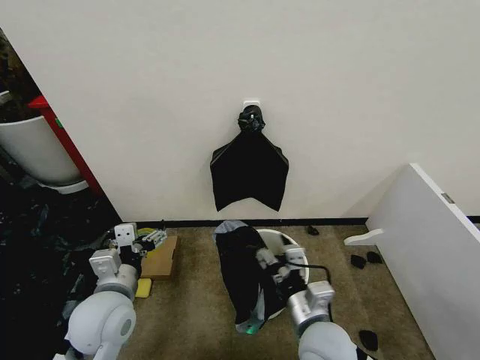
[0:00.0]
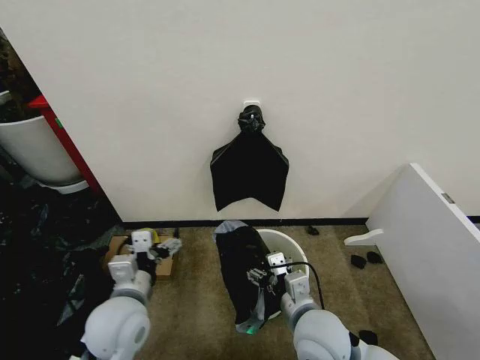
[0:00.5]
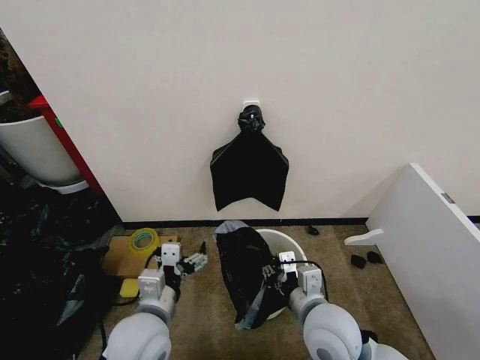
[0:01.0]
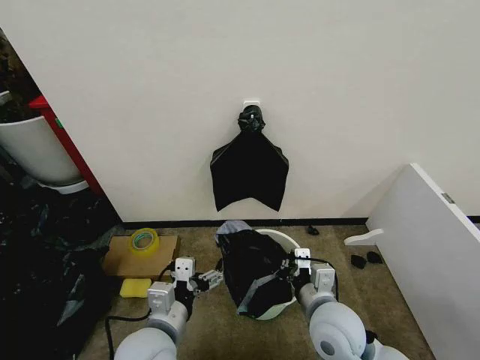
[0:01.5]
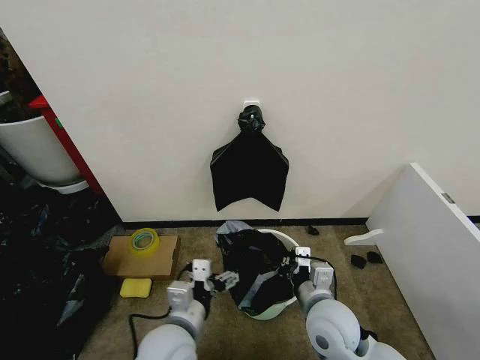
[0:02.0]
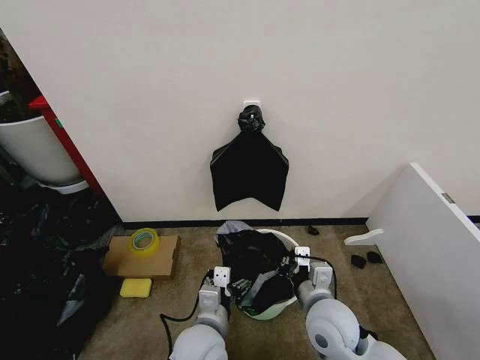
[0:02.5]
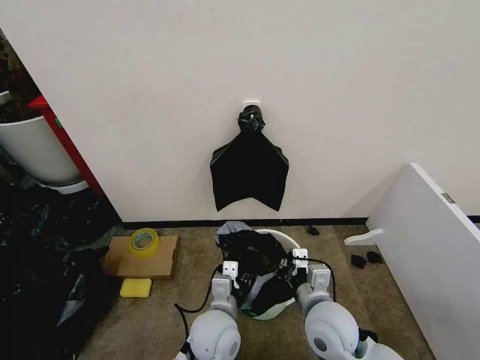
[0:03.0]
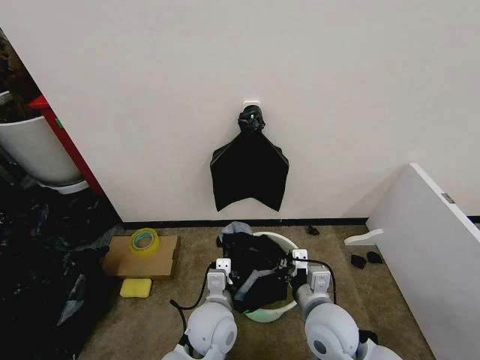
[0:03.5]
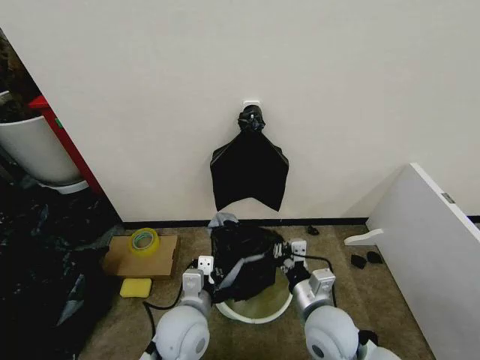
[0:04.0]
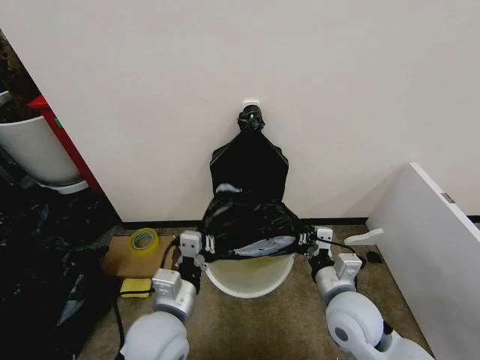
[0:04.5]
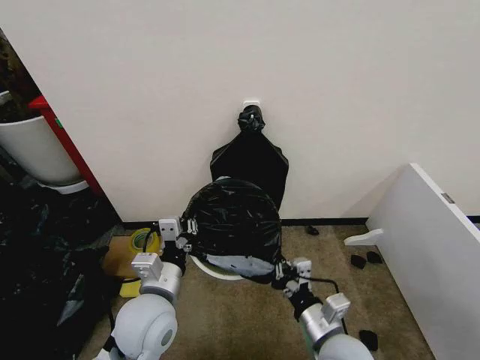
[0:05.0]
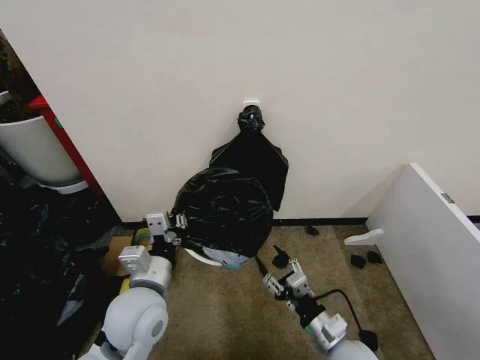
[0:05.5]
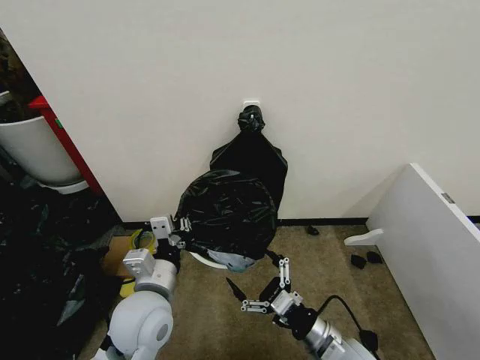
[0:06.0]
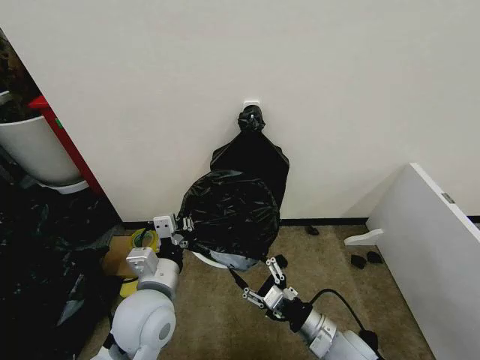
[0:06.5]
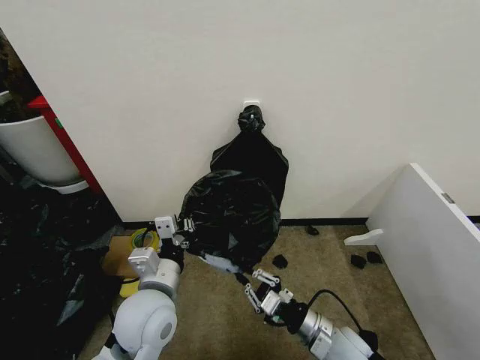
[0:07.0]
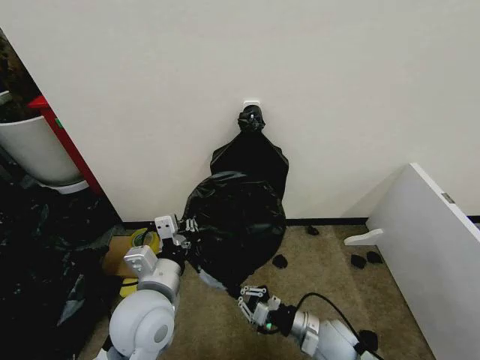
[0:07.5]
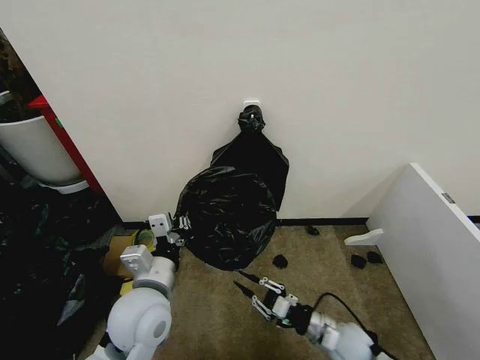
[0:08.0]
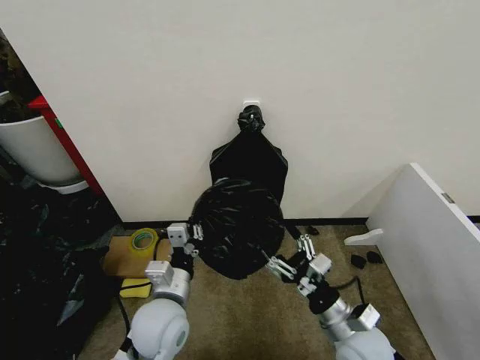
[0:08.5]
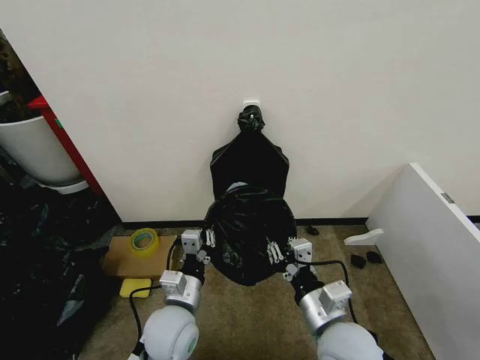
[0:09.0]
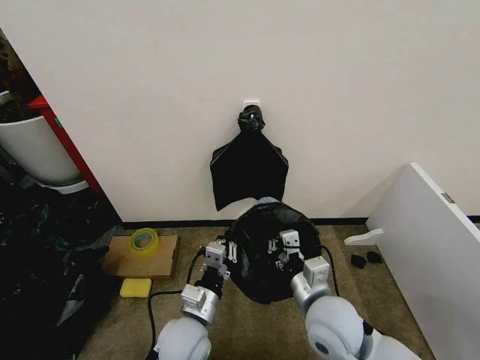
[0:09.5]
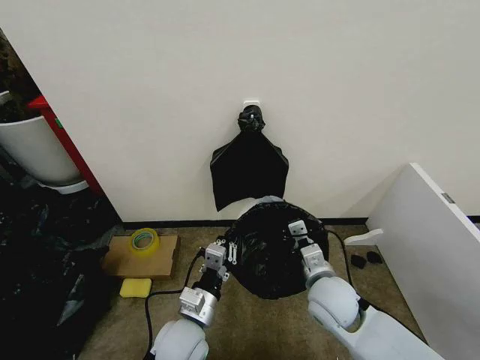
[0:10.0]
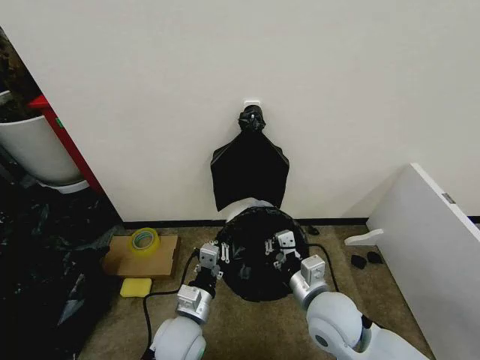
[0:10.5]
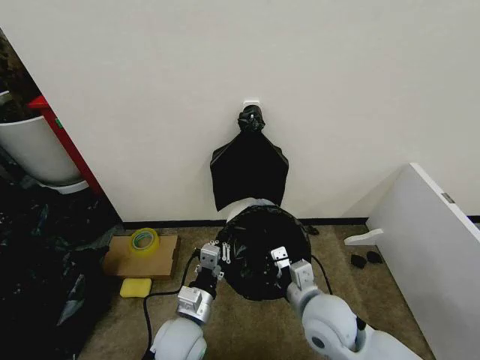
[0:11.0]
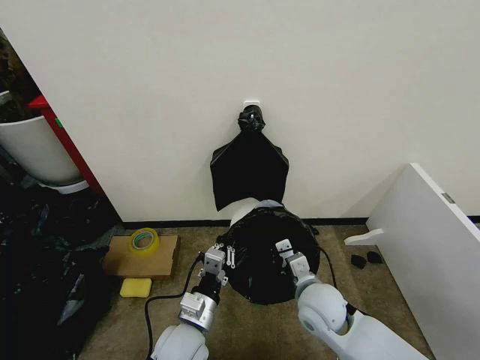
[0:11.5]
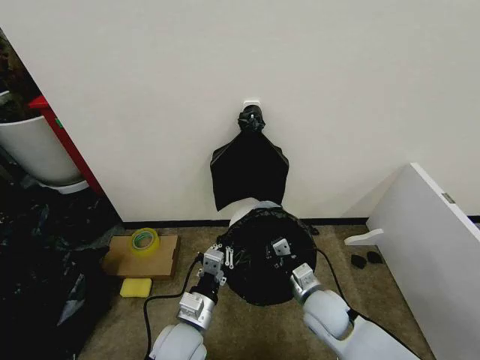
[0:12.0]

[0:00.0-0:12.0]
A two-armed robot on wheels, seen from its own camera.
Task of the whole recording: Place the garbage bag over the trash bin.
0:00.0 to 0:02.0: The right gripper moves some 5 cm, and closes; the left gripper is displaced to the right by about 10 cm.
0:02.0 to 0:04.0: The left gripper closes its fingers.
0:04.0 to 0:06.0: The left gripper heads upward and to the left, covering roughly 10 cm. Meanwhile the right gripper ends up some 10 cm from where it was, and opens up.
0:06.0 to 0:08.0: The right gripper goes about 10 cm downward and forward, and closes up.
0:08.0 to 0:10.0: The left gripper travels downward and to the right by roughly 10 cm. The right gripper is displaced upward, forward and to the left by some 15 cm, and opens and closes again.
0:10.0 to 0:12.0: The right gripper is displaced downward by roughly 5 cm.

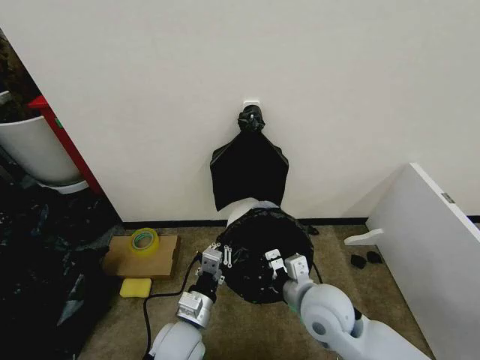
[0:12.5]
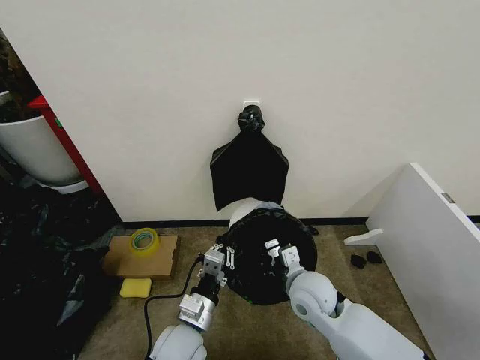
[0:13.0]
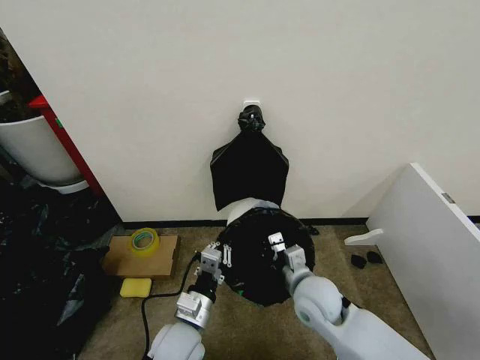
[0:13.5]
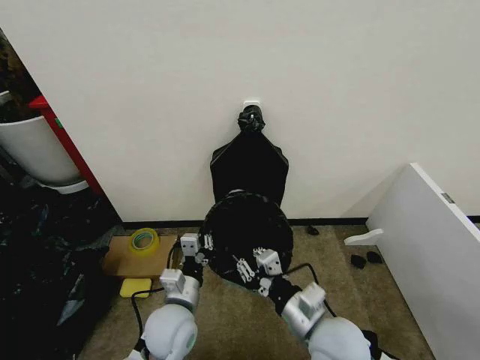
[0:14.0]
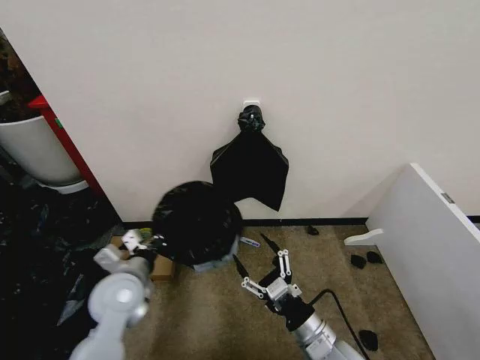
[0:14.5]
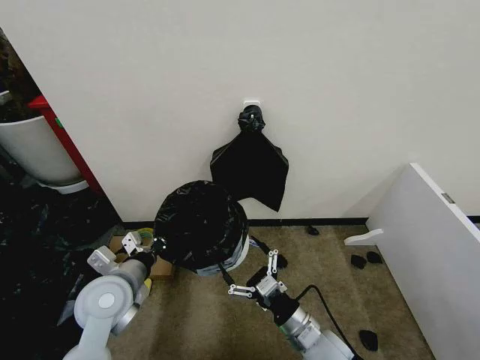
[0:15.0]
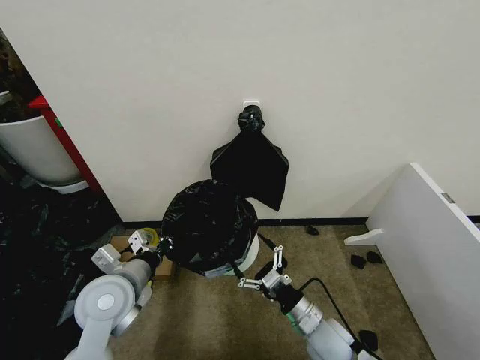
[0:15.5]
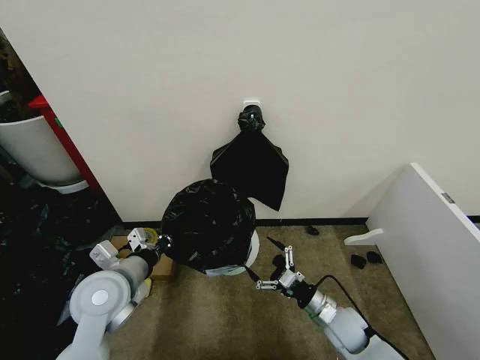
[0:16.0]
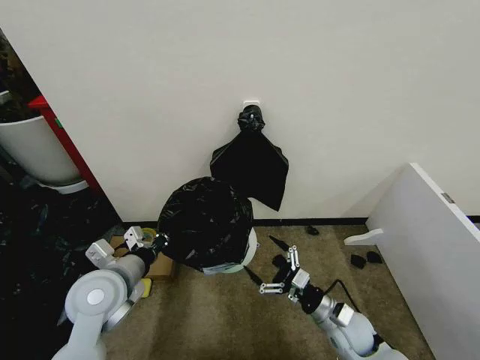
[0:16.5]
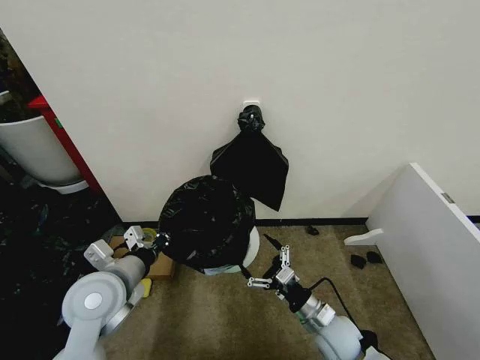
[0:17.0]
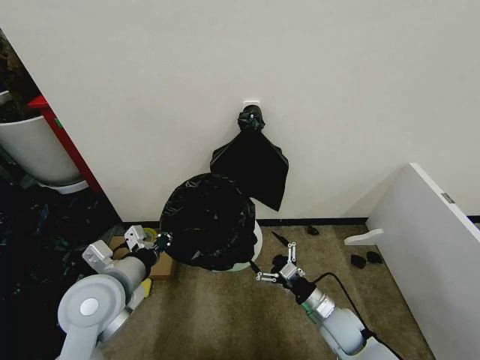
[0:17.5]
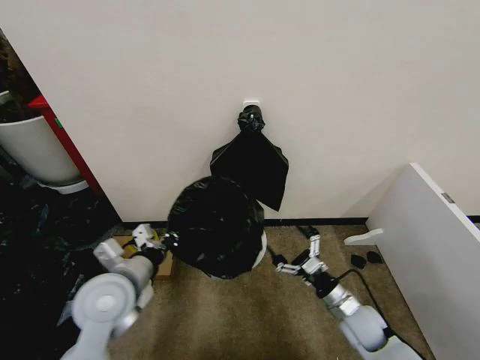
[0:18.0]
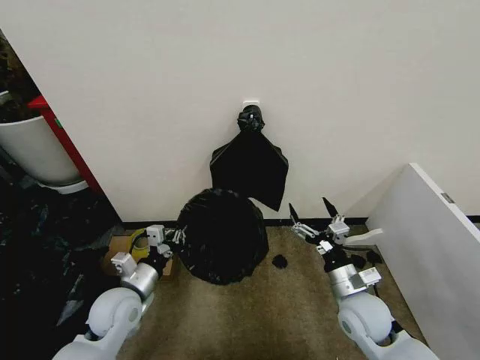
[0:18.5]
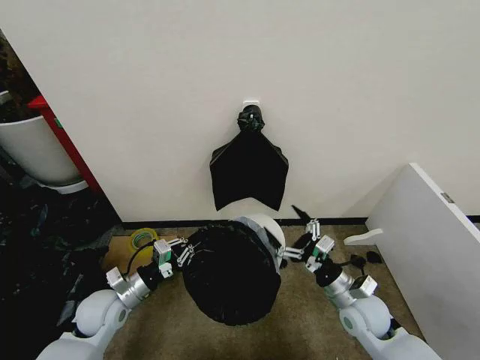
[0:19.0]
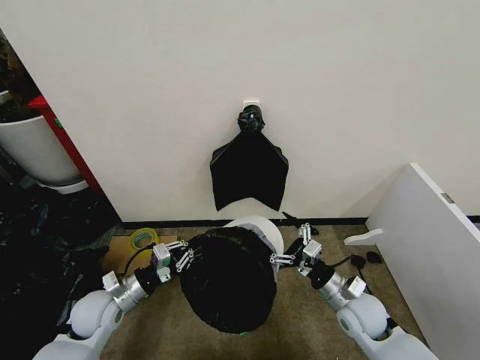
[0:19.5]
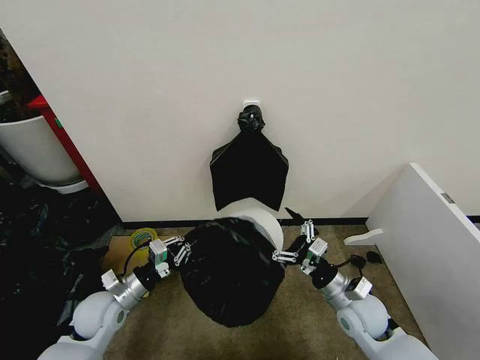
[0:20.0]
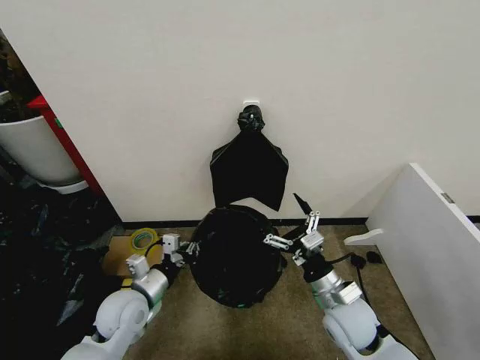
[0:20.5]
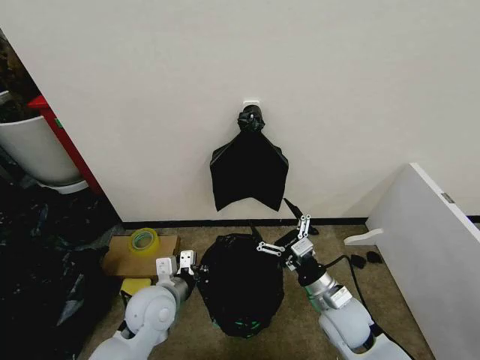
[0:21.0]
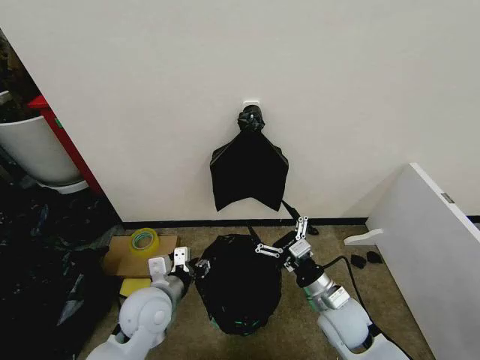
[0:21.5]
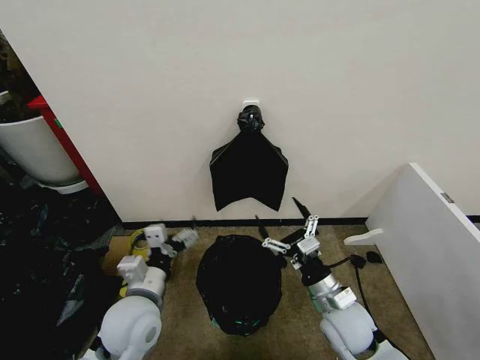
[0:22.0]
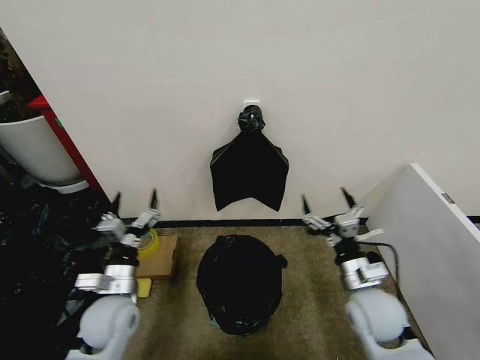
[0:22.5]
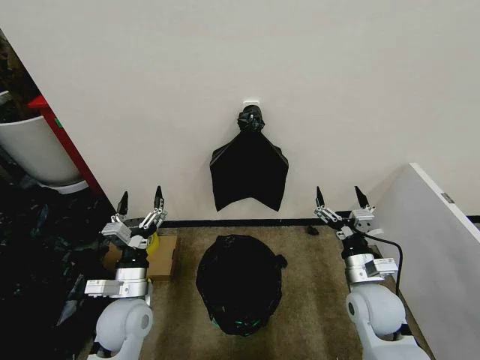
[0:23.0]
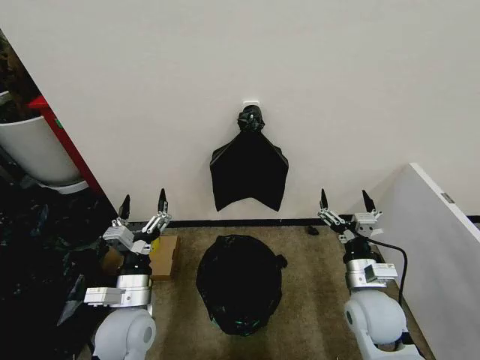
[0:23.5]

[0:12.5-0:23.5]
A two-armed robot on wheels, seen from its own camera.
Task of the whole recording: Place the garbage bag over the trash bin.
0:12.5 to 0:14.5: The right gripper is displaced backward and downward by roughly 10 cm, and opens; the left gripper goes approximately 15 cm to the left, upward and forward.
0:14.5 to 0:16.0: The right gripper heads downward, forward and to the right, covering approximately 15 cm.
0:18.0 to 0:20.0: The left gripper moves downward and to the left, approximately 15 cm, while the right gripper goes approximately 5 cm upward.
0:20.0 to 0:21.5: The left gripper is displaced to the right and upward by about 15 cm, and opens its fingers. Meanwhile the right gripper moves roughly 5 cm.
0:21.5 to 0:23.5: The right gripper ends up roughly 5 cm from where it was, while the left gripper reaches approximately 10 cm to the left, then returns, and opens its fingers.

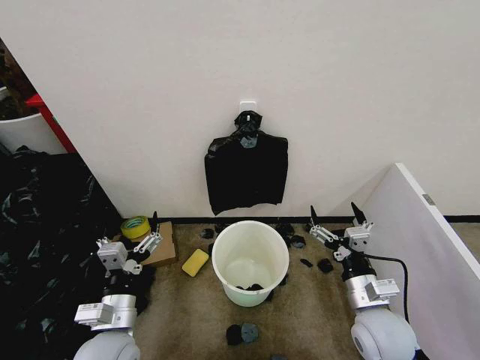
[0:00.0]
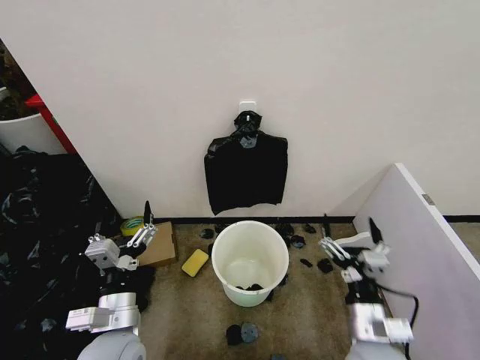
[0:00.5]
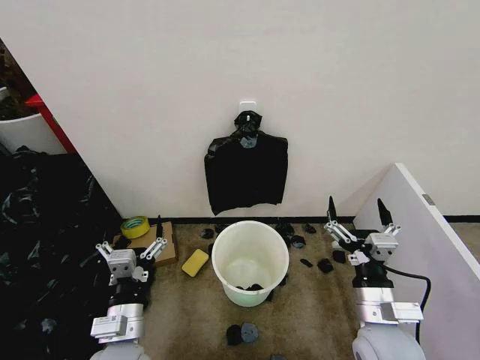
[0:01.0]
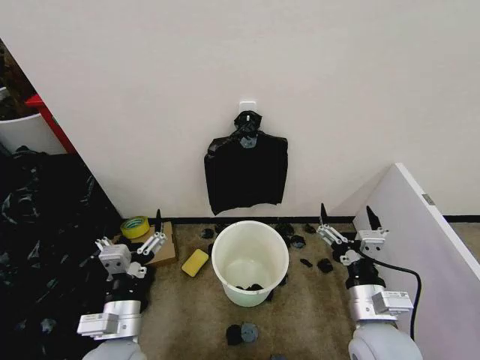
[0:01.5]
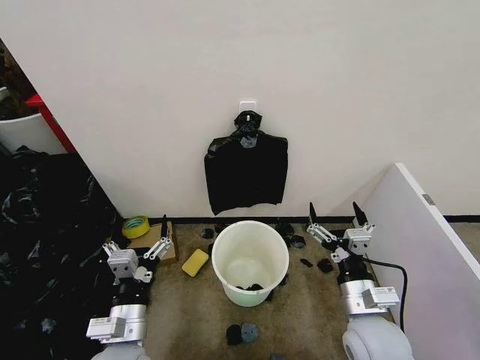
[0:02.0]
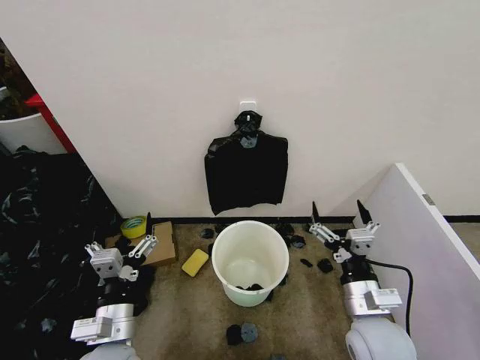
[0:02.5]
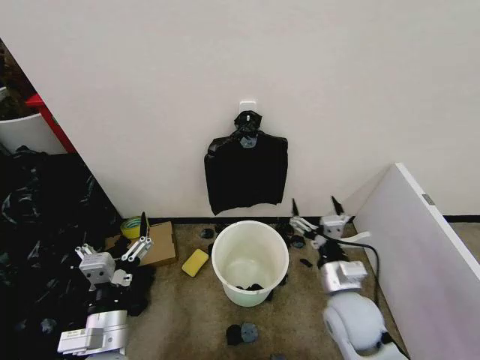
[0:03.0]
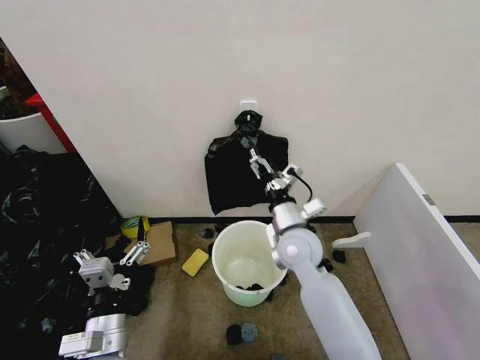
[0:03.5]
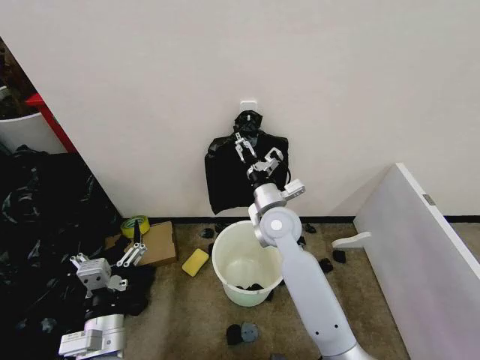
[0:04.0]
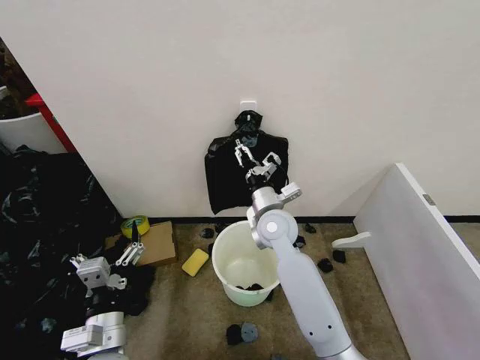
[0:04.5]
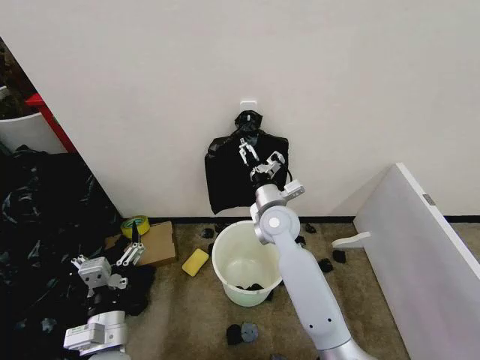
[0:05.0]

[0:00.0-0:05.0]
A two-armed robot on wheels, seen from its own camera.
Task of the whole recording: Place the garbage bag over the trash bin.
0:02.5 to 0:05.0: The right gripper travels forward and to the left by some 30 cm.
